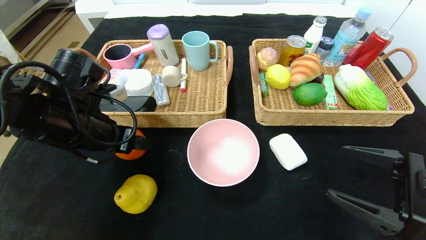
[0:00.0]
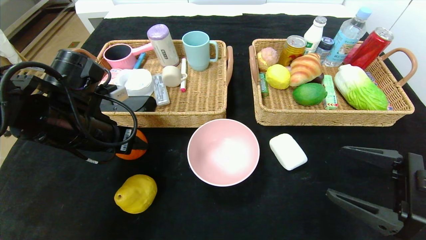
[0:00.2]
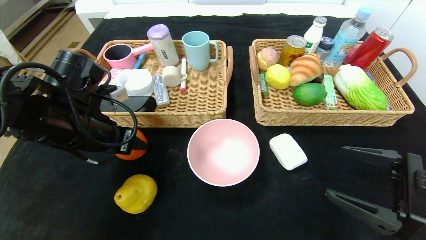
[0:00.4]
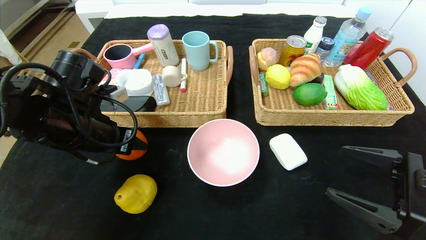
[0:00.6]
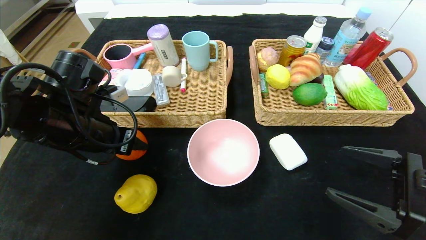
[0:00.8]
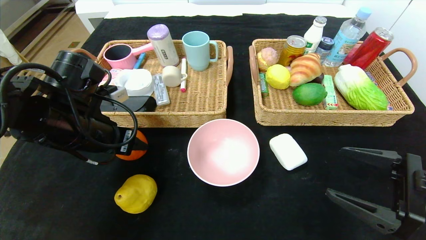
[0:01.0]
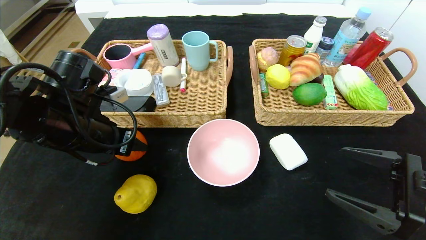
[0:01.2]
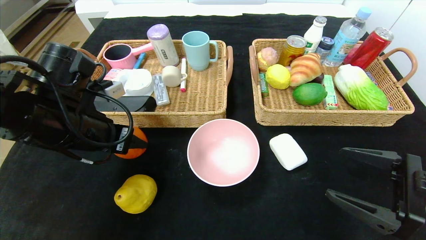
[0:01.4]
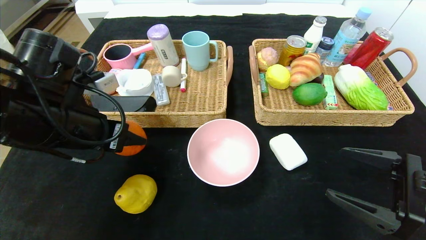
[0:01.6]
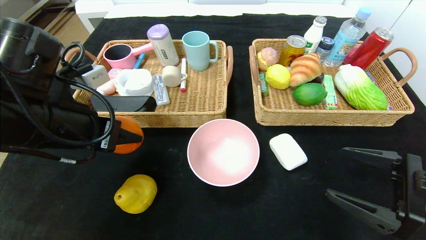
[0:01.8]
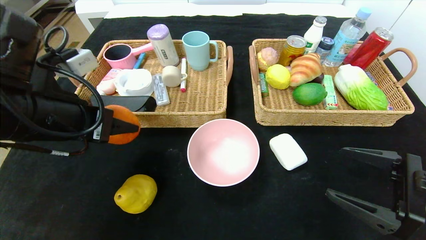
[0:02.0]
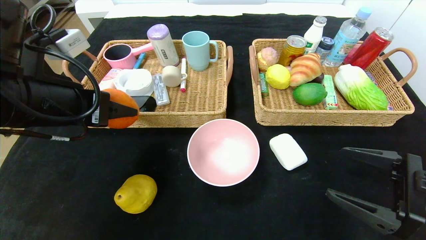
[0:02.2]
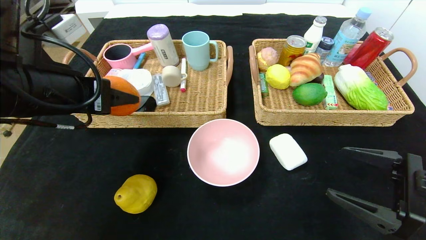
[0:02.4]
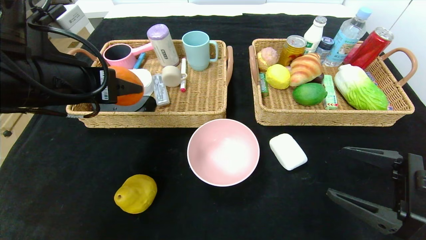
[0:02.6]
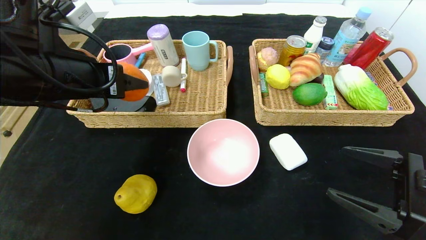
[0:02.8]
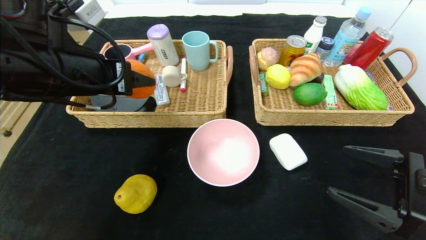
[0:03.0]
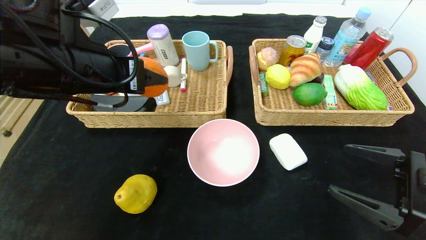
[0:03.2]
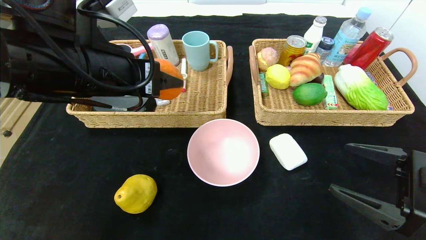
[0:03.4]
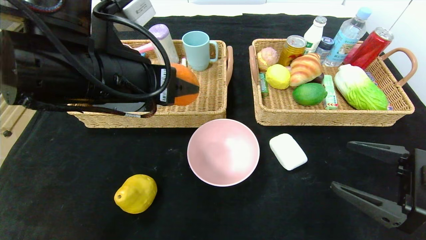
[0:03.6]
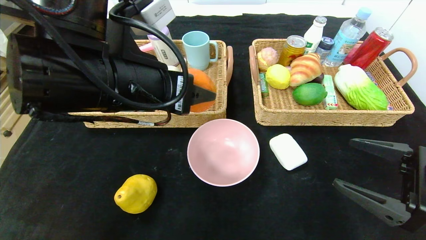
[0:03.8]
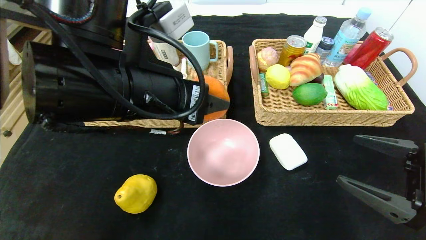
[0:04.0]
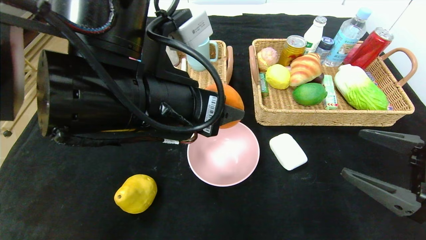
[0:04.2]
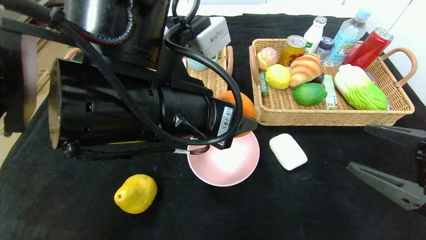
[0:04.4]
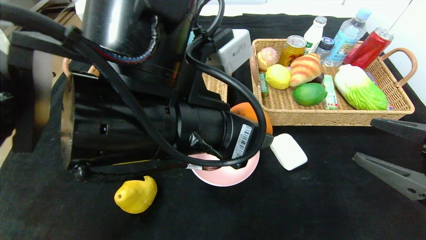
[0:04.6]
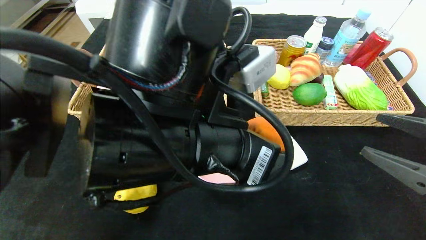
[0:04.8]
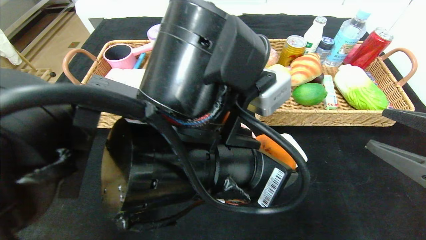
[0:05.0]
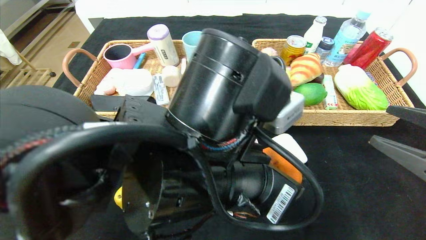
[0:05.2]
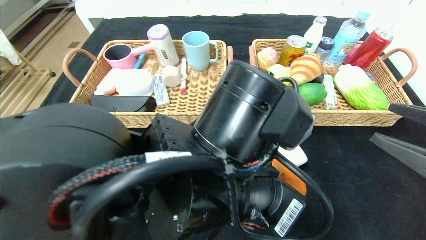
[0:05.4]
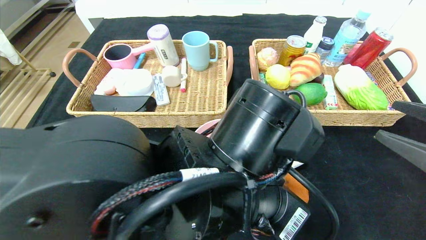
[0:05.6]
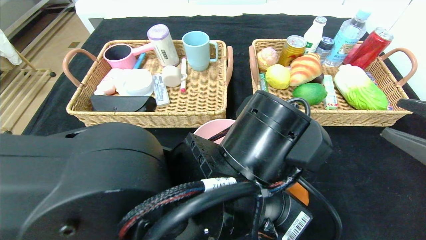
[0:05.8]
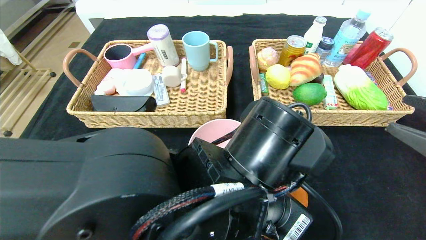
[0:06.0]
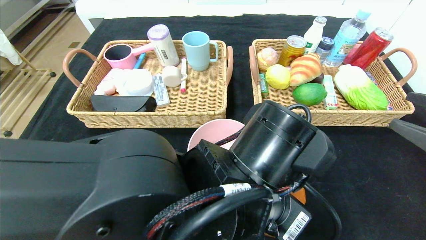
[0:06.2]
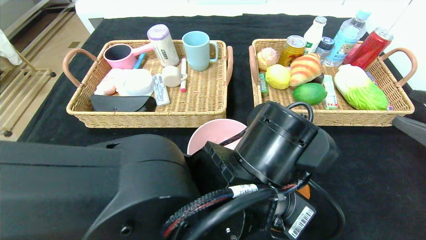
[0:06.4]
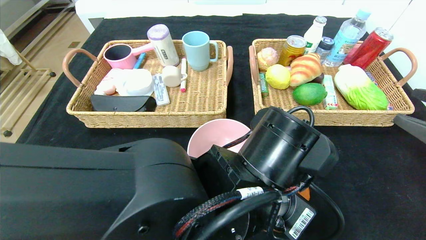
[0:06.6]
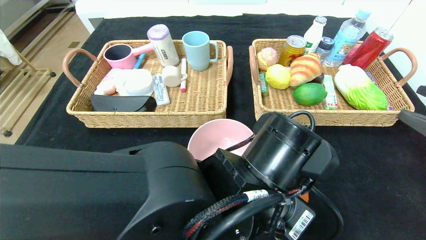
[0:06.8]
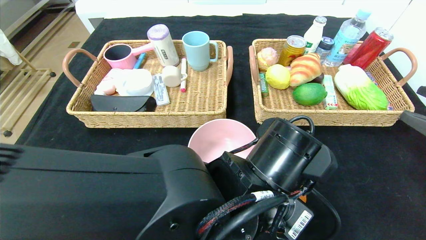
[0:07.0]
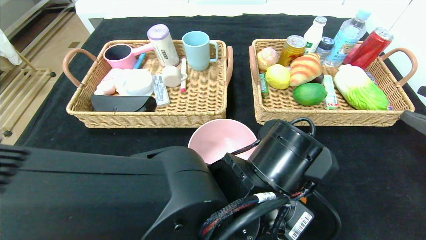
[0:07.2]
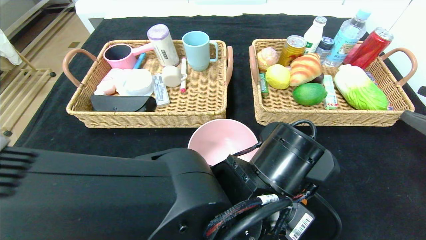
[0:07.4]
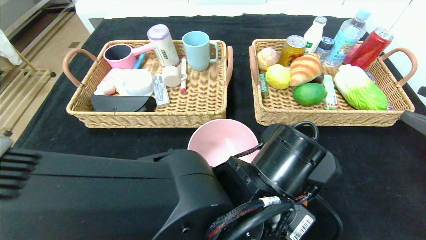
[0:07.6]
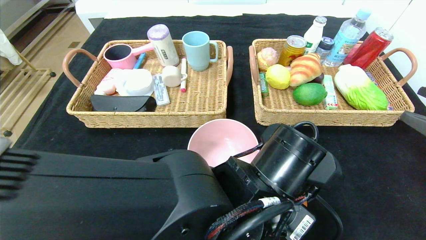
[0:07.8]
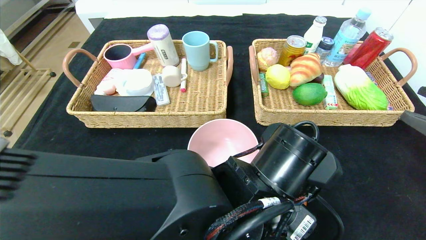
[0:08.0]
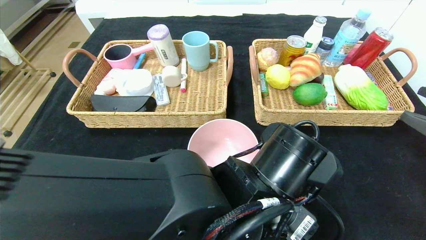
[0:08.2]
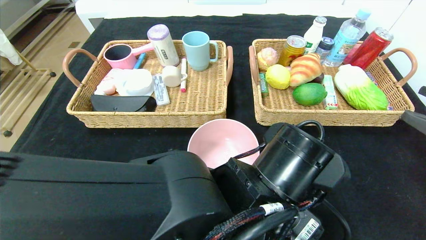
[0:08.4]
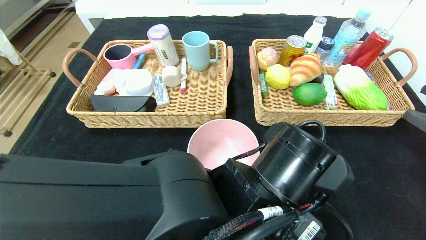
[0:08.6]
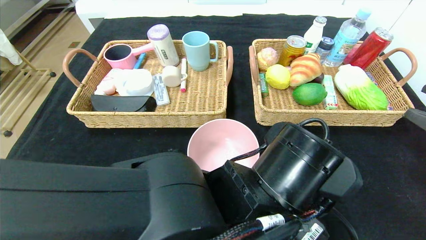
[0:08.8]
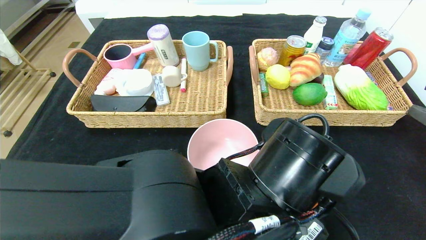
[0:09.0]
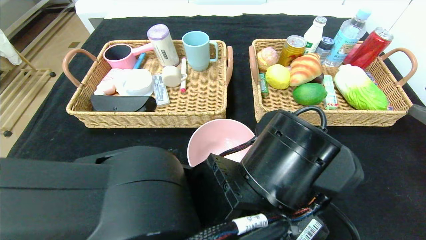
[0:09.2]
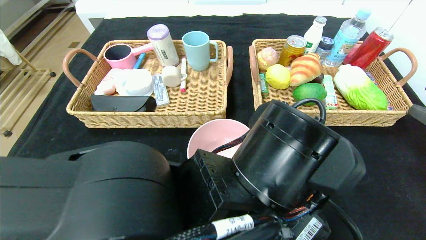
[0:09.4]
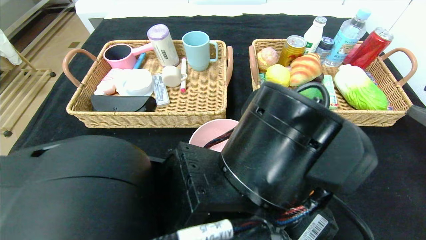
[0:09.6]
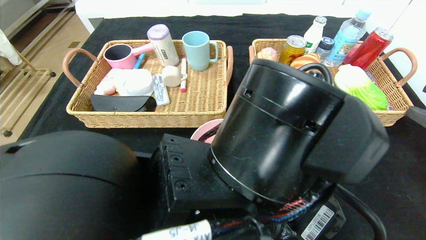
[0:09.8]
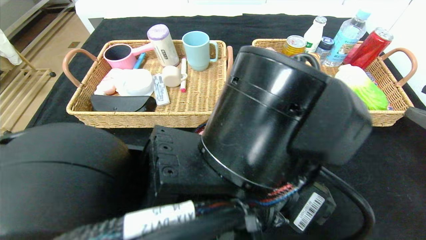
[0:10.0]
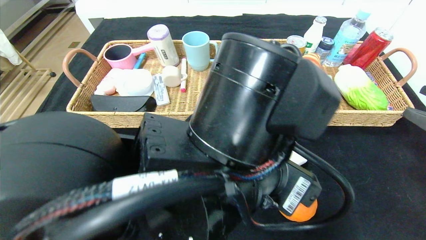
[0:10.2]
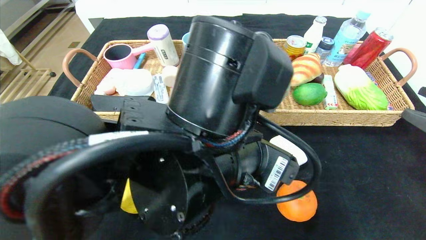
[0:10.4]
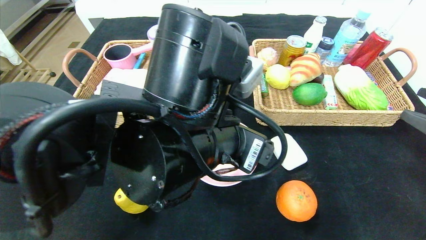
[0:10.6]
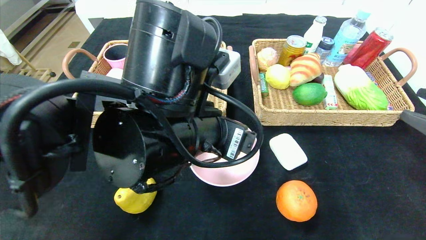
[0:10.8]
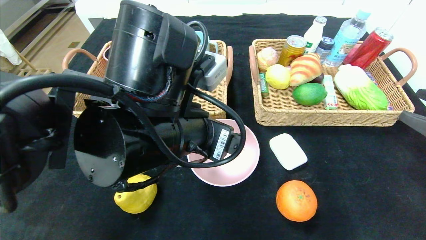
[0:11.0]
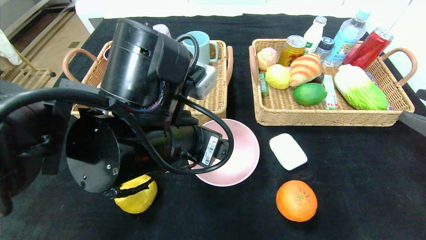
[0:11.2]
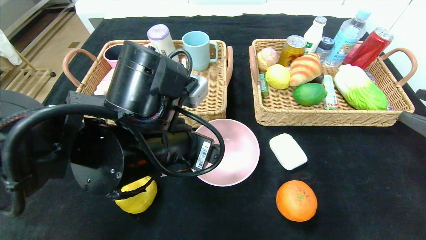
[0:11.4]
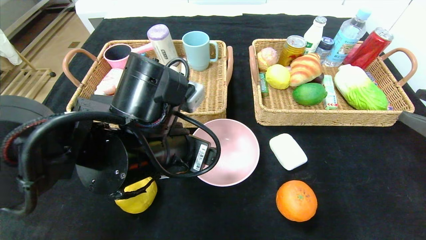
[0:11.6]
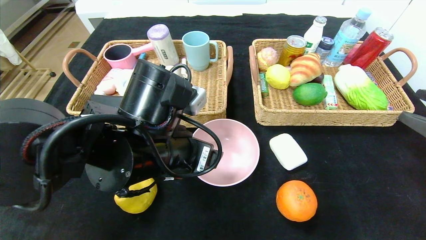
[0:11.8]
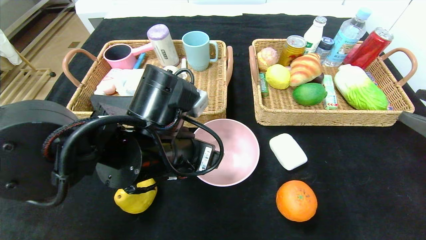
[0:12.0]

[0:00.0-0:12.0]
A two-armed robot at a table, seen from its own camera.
Step, 0:00.0 to 0:10.6: Place the orange in the center of the table.
0:00.0 to 0:01.6: There are only small adjustments of the grippers.
0:01.6 to 0:03.0: The left gripper shifts approximately 5 cm upward.
0:03.0 to 0:04.4: The left gripper goes some 15 cm to the right and backward.
0:04.4 to 0:06.0: The right gripper moves some 5 cm; the left gripper travels downward and to the right by some 10 cm.
0:07.6 to 0:09.0: There are only small adjustments of the grippers.
0:09.0 to 0:10.4: The left gripper goes approximately 5 cm upward.
0:10.4 to 0:12.0: The left gripper is displaced to the left and forward by about 10 cm.

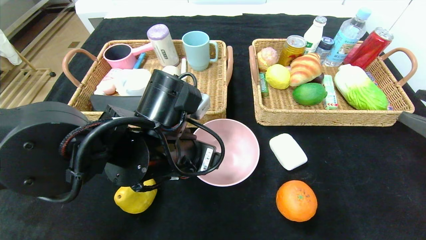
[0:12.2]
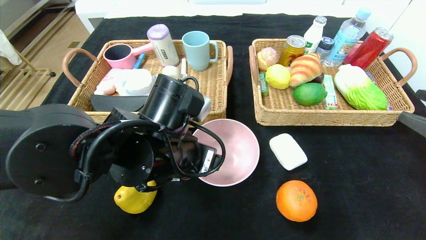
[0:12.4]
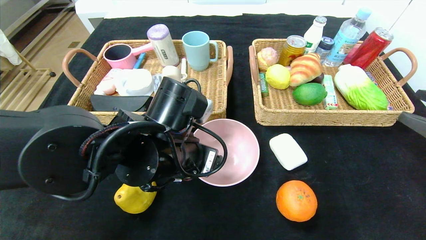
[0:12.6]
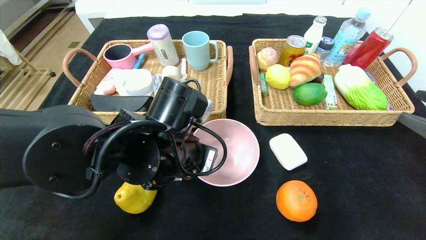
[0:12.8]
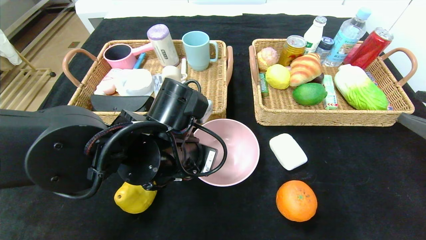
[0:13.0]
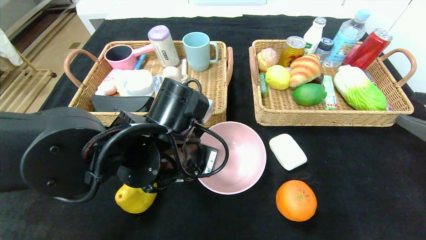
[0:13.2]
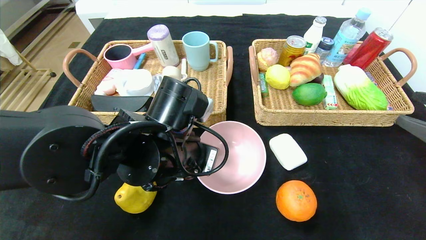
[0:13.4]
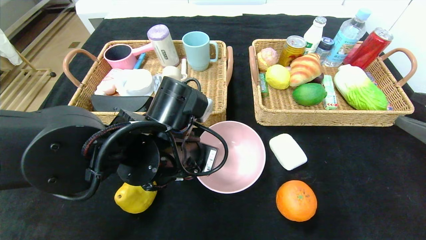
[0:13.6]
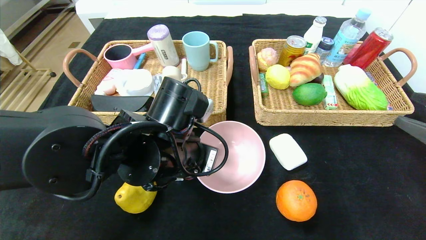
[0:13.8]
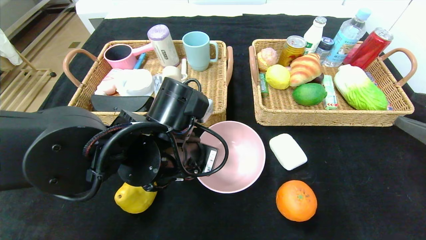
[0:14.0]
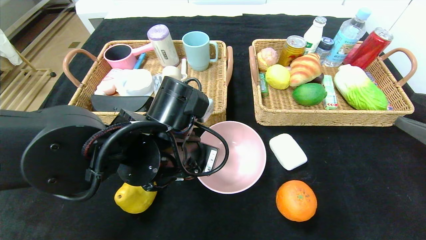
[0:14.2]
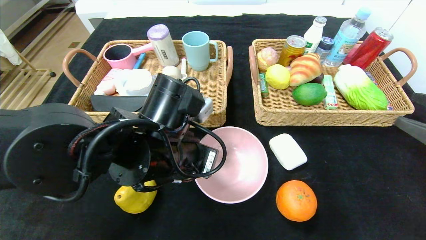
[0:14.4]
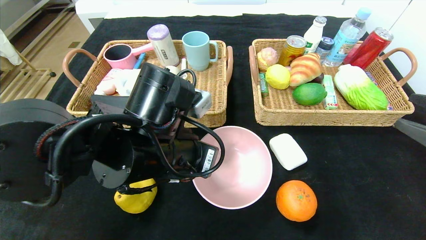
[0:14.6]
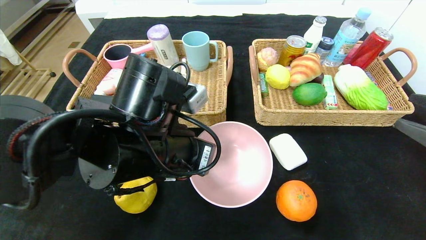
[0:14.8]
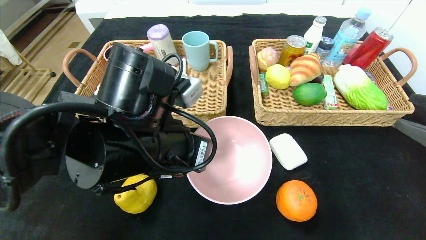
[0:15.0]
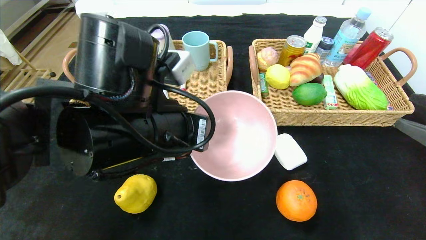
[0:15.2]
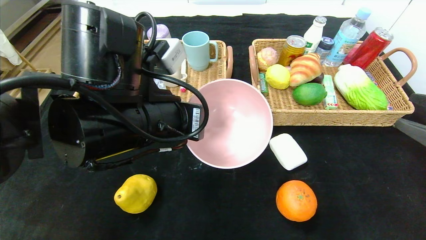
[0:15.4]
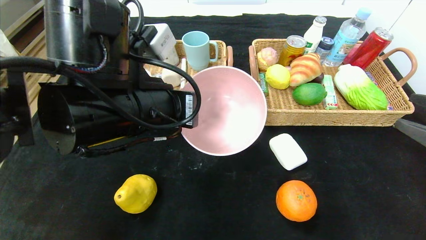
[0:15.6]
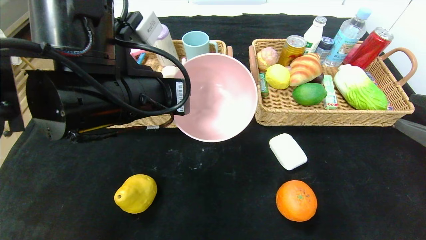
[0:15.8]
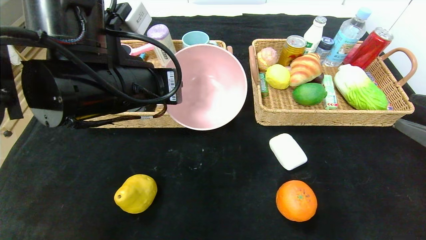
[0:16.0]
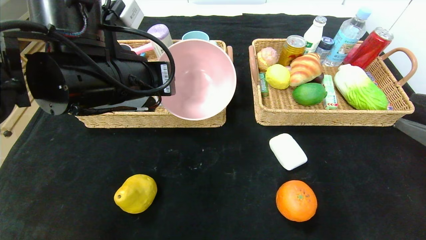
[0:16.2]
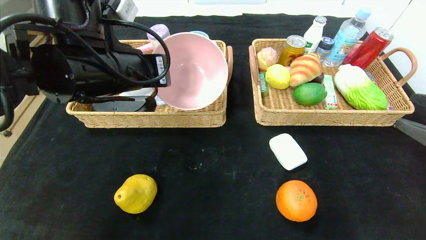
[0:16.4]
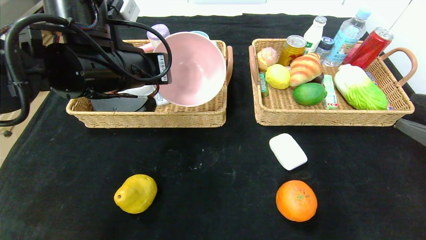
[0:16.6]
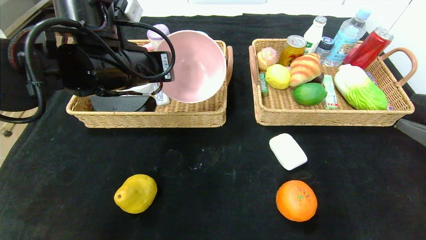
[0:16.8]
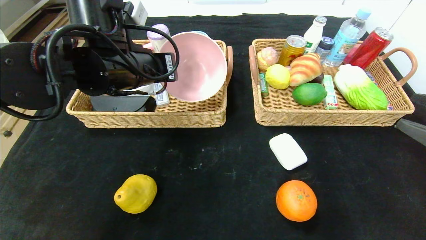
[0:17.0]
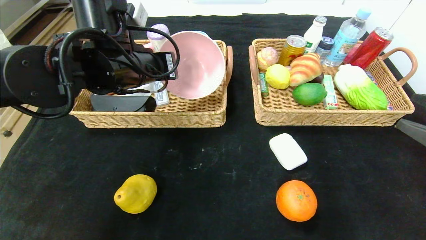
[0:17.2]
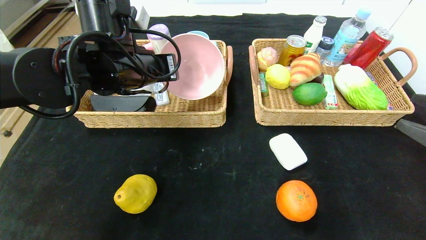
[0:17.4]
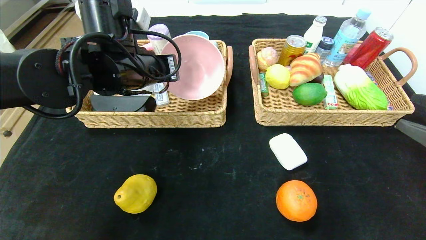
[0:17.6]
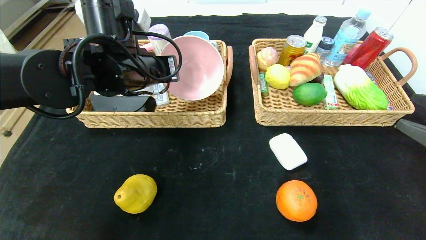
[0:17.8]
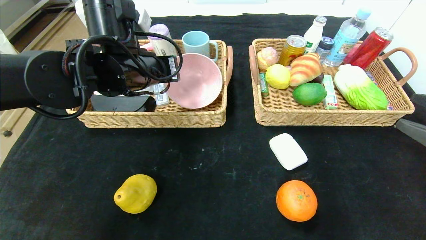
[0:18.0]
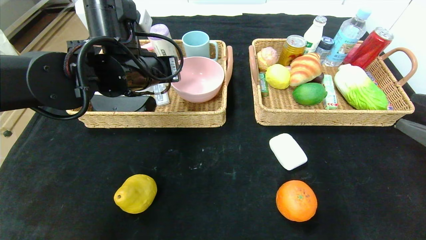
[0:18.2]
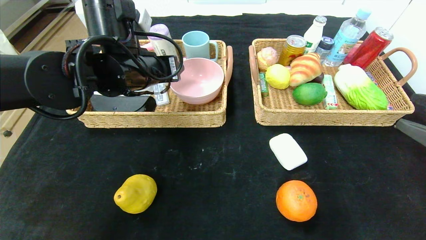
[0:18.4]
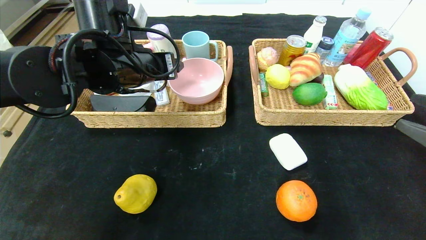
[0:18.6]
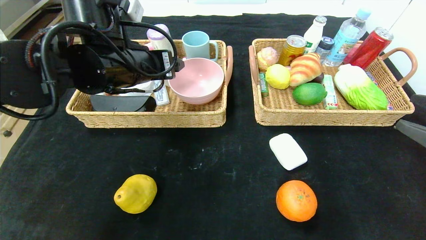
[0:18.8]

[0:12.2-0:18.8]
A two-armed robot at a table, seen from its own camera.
0:12.2 to 0:13.8: The left gripper closes up.
0:13.8 to 0:15.4: The left gripper shifts some 5 cm upward.
0:15.4 to 0:17.2: The left gripper shifts roughly 10 cm forward.
0:17.2 to 0:18.8: The left gripper opens up.
